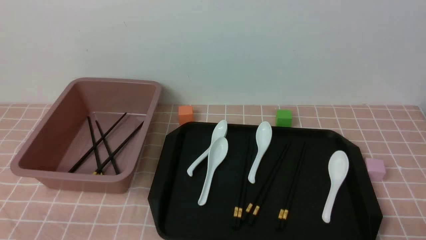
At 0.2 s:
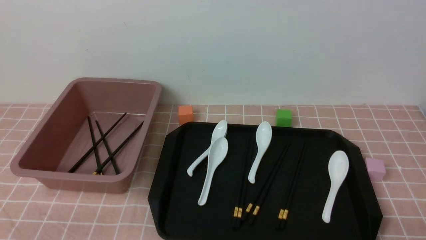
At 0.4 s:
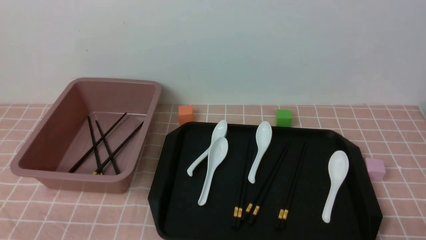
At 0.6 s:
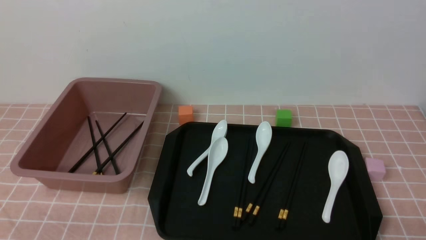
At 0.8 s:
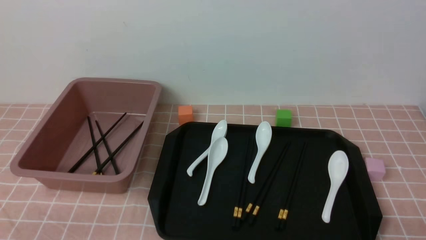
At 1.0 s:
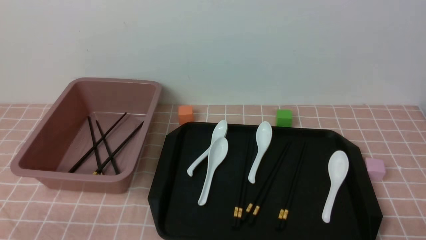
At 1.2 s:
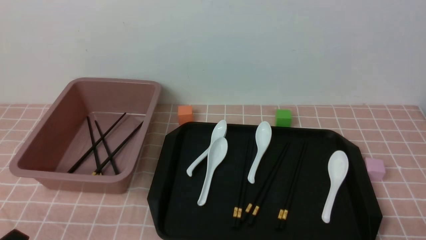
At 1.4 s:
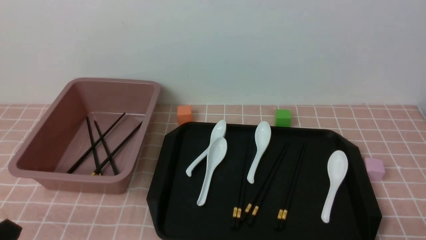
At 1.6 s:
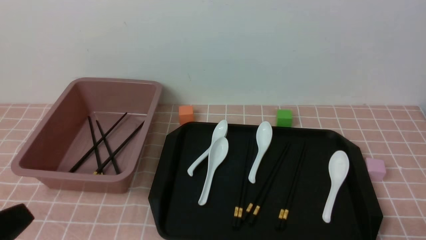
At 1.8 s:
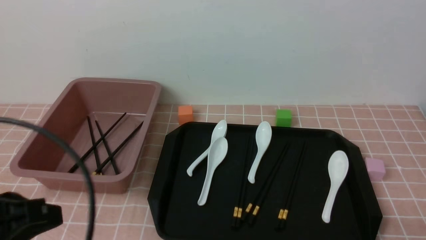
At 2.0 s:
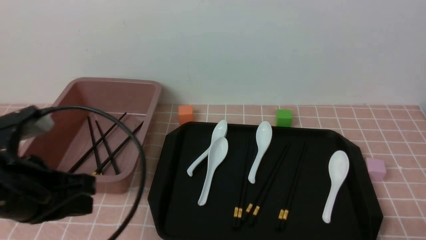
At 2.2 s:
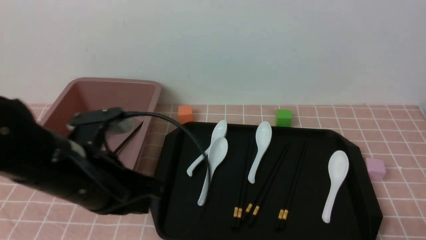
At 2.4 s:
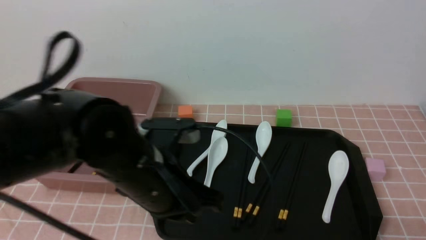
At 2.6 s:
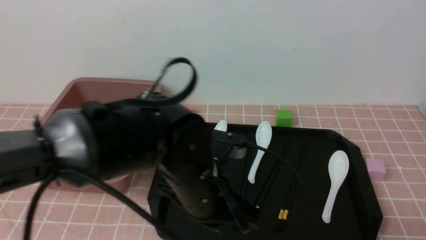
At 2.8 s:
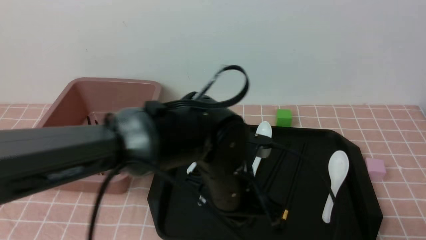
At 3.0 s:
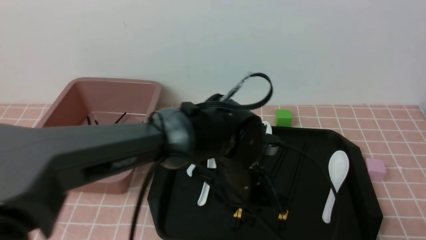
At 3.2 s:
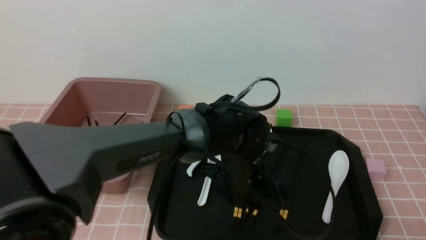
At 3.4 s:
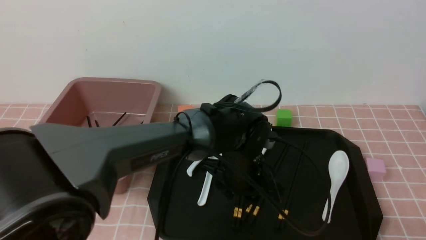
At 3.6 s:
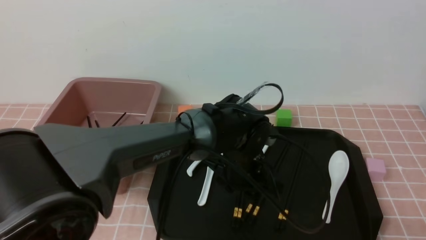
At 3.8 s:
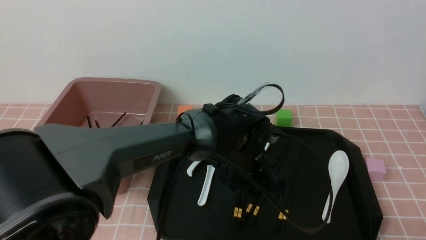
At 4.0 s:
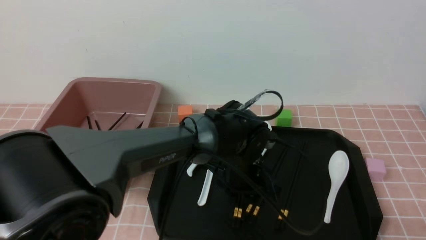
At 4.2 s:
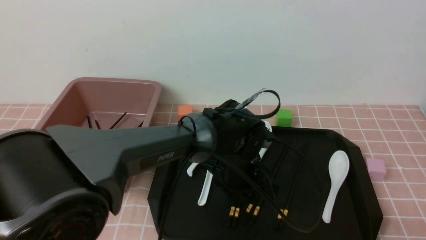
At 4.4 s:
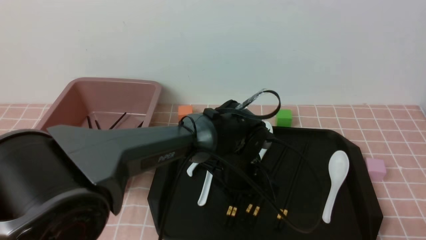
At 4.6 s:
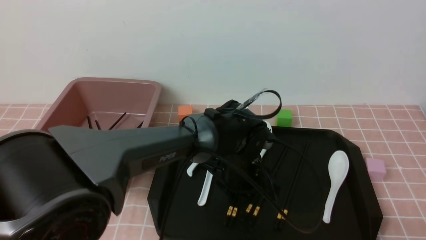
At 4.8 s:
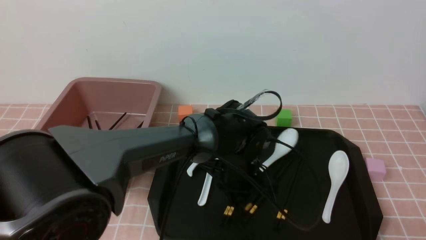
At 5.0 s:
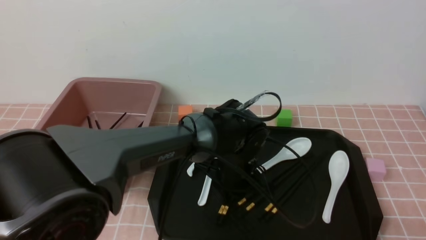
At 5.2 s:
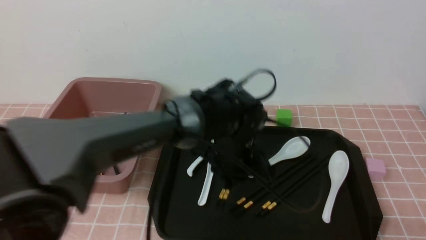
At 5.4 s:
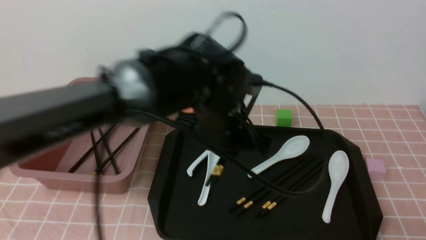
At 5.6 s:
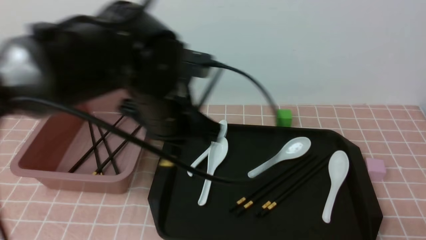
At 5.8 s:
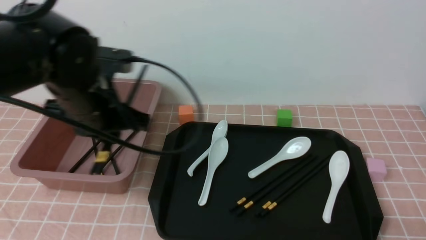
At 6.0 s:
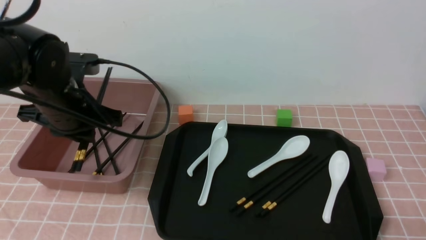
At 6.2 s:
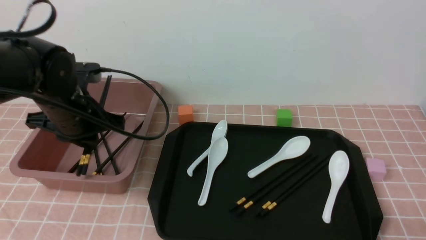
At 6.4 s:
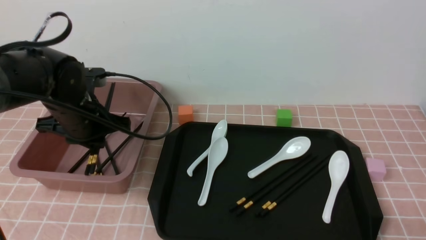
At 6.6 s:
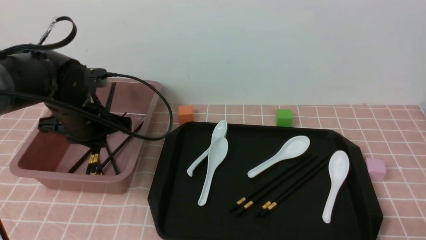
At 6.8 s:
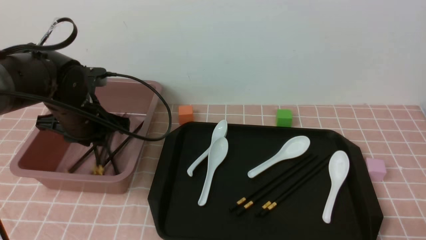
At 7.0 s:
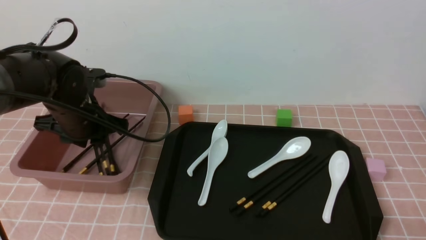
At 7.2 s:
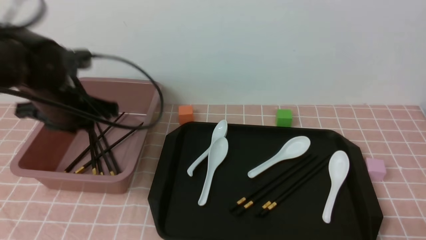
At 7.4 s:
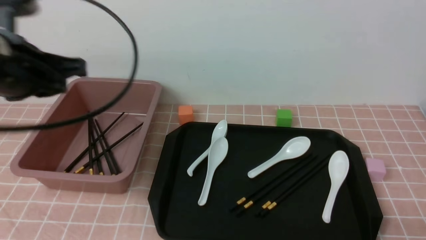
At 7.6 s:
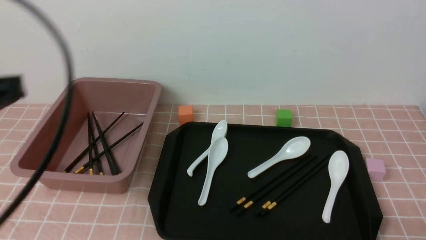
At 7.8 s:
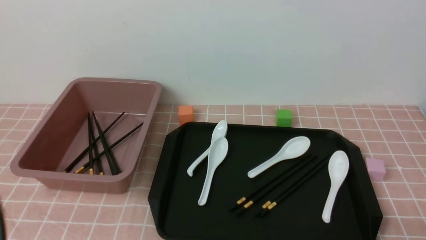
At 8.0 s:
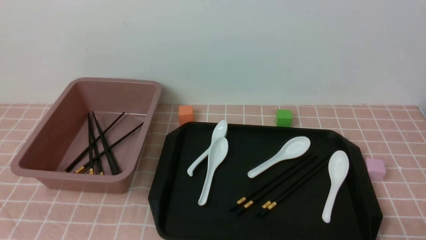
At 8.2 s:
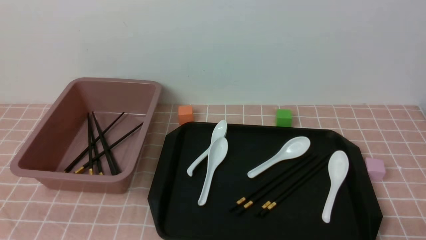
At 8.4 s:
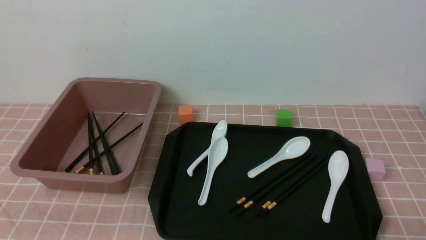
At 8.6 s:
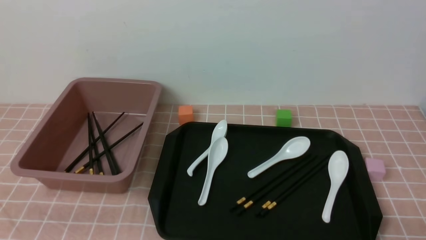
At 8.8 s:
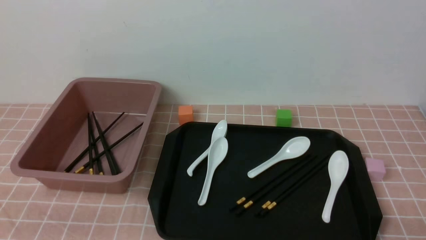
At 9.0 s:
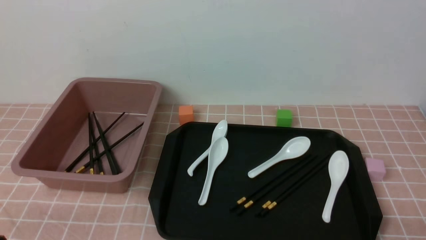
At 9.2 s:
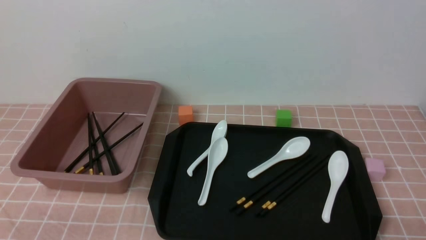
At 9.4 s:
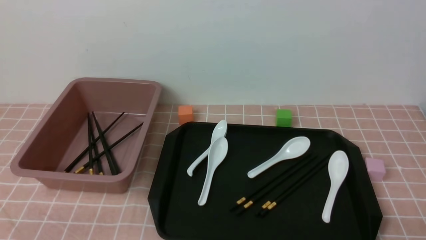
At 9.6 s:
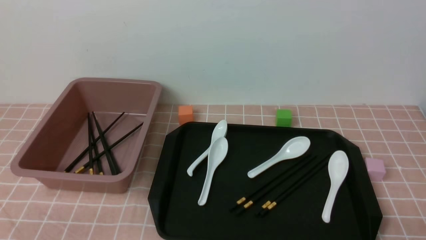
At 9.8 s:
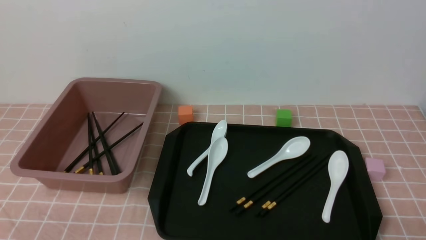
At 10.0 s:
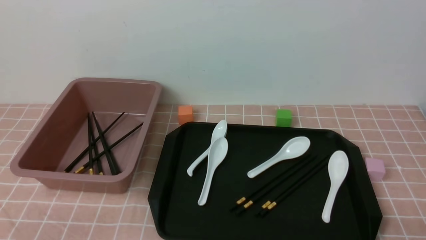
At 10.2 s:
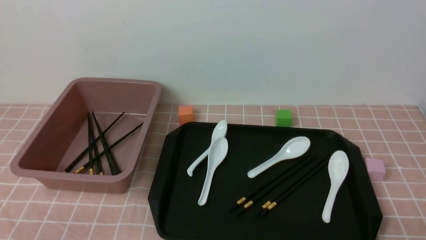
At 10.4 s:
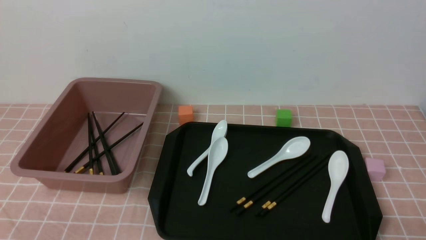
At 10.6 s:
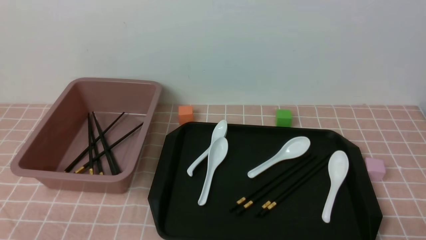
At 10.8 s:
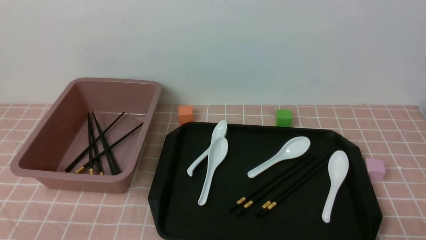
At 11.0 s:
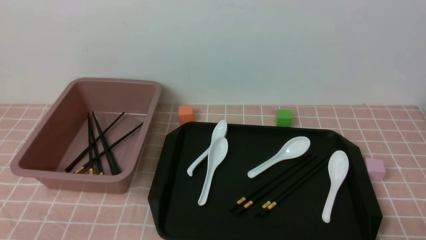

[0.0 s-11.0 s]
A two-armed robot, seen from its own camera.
Step, 0.0 to 5.2 s: use the left arm to grab a pair of chopsticks.
Step, 5.4 to 7.0 s: use the left arm to put the chopsticks into the lunch box.
0.0 to 1.6 s: The left gripper shifts roughly 10 cm upward.
1.6 to 3.2 s: The left gripper is displaced to the right and forward by about 35 cm, and opens up.
3.2 to 4.8 s: The left gripper closes up.
4.8 to 6.2 s: The left gripper heads to the left, covering about 25 cm.
6.2 to 7.8 s: The left gripper goes some 25 cm backward, and closes its fingers.
9.4 to 11.0 s: The two grippers keep their place.
